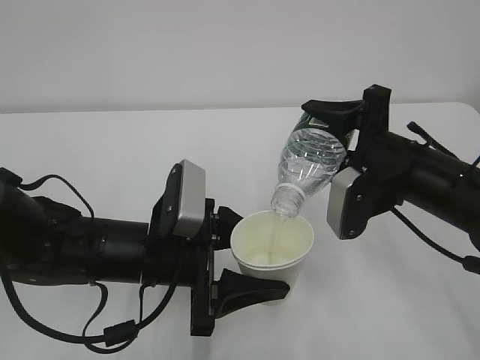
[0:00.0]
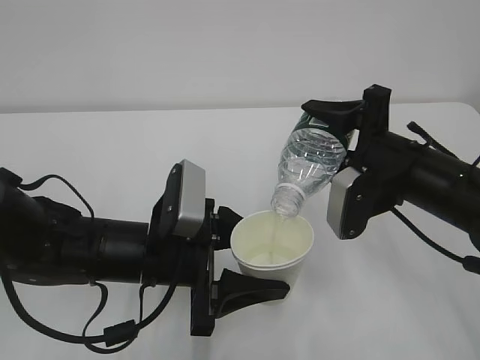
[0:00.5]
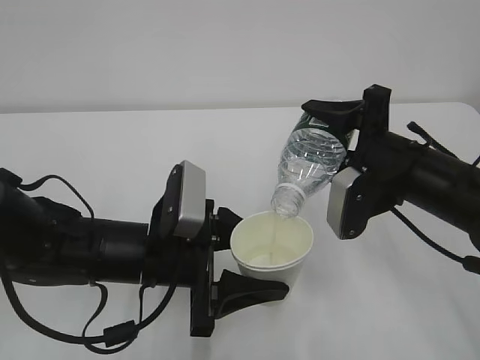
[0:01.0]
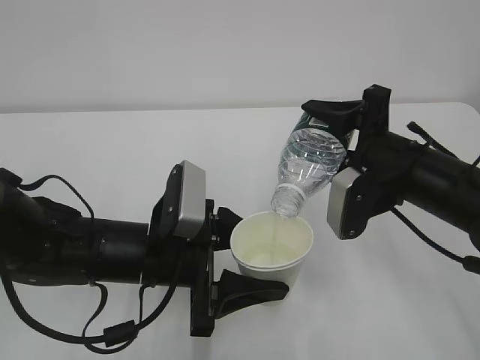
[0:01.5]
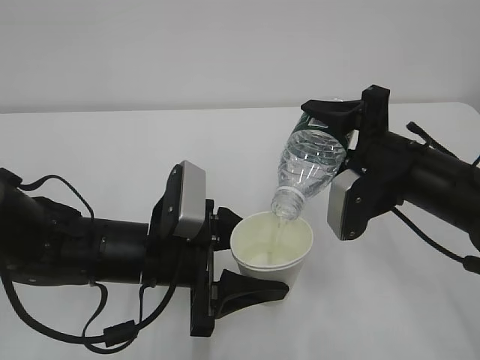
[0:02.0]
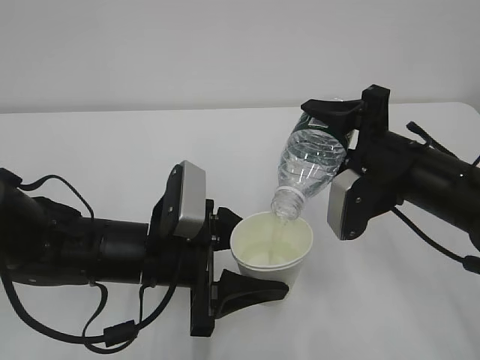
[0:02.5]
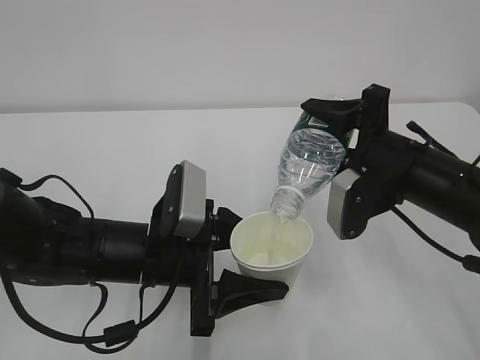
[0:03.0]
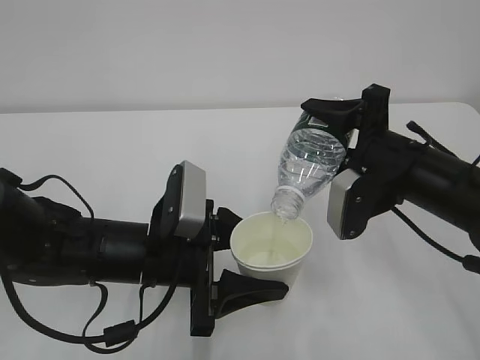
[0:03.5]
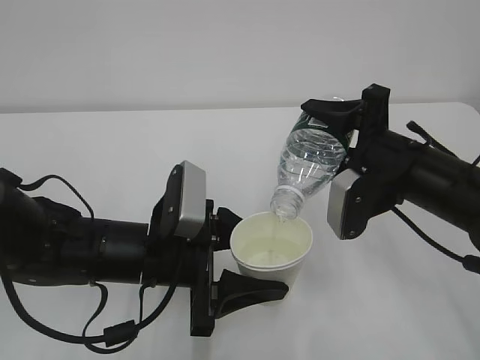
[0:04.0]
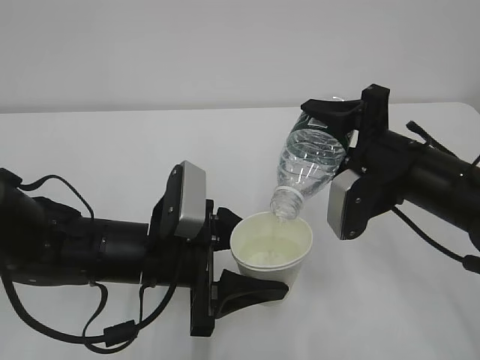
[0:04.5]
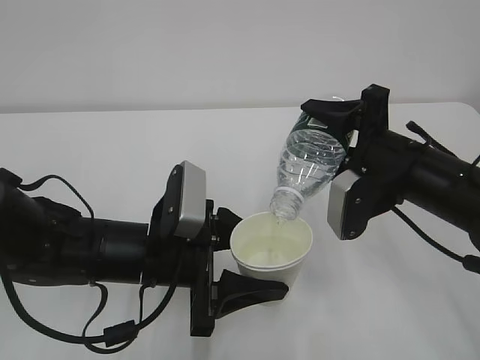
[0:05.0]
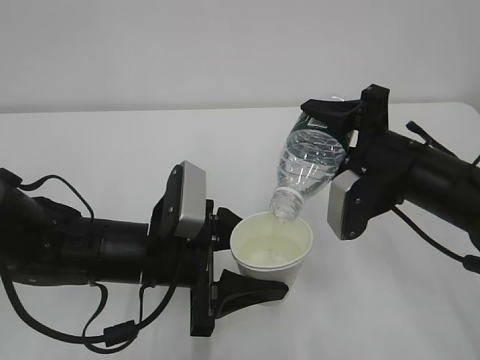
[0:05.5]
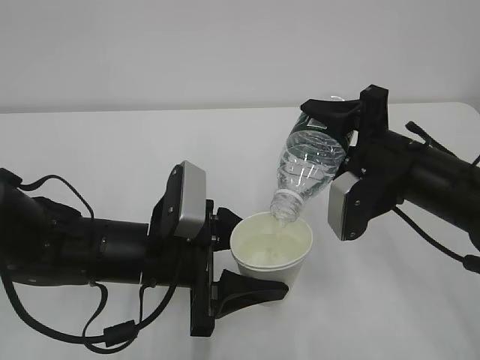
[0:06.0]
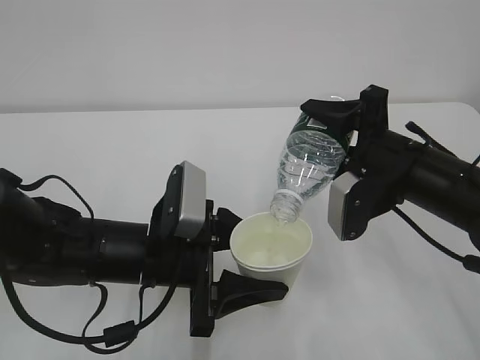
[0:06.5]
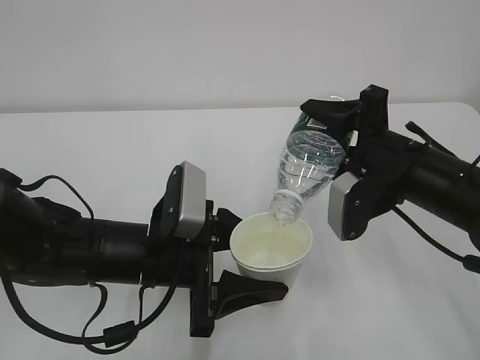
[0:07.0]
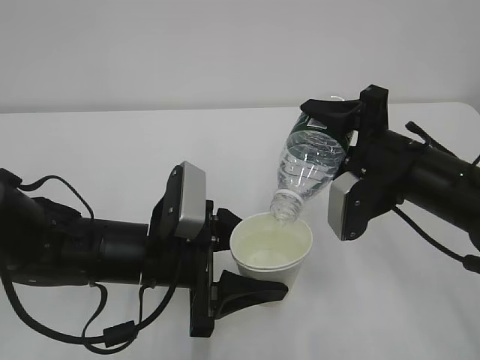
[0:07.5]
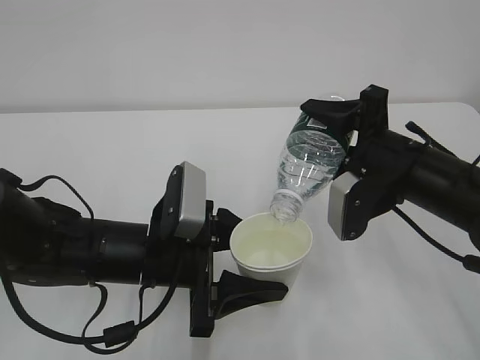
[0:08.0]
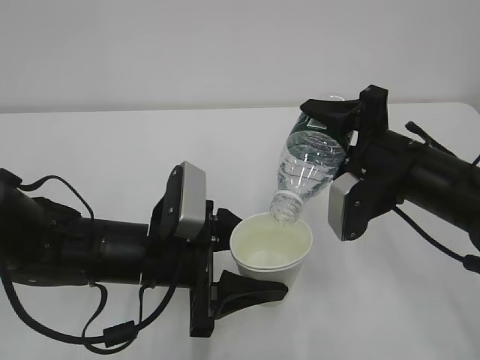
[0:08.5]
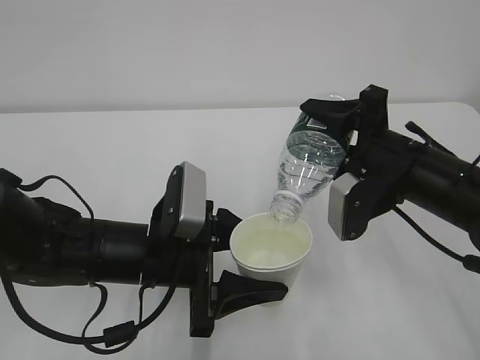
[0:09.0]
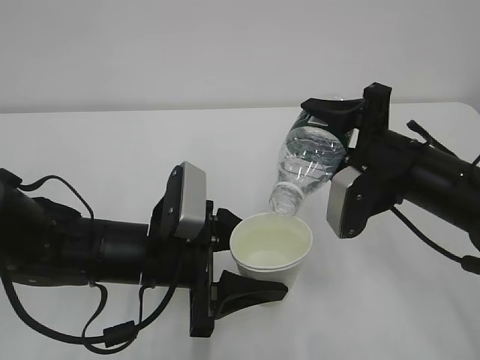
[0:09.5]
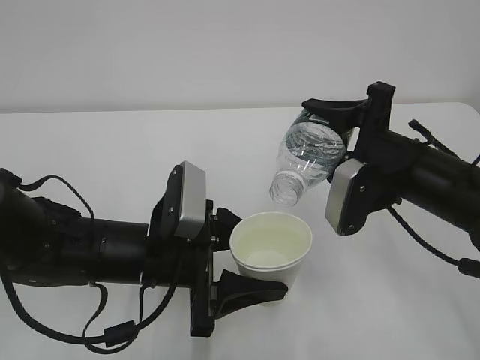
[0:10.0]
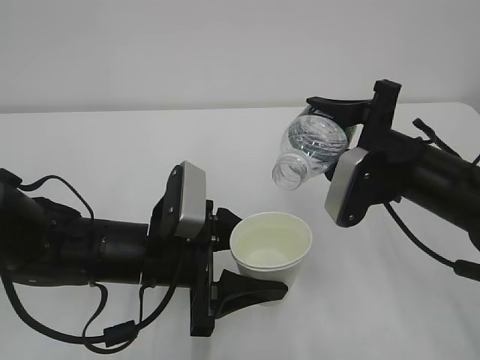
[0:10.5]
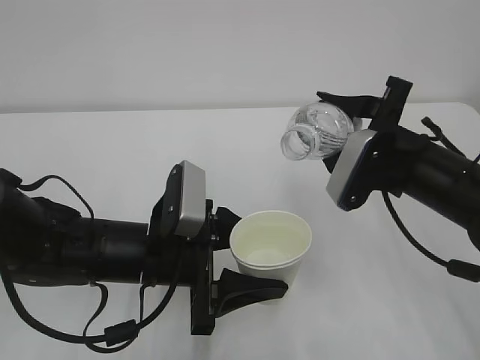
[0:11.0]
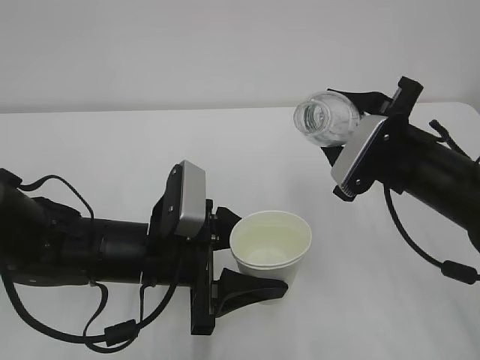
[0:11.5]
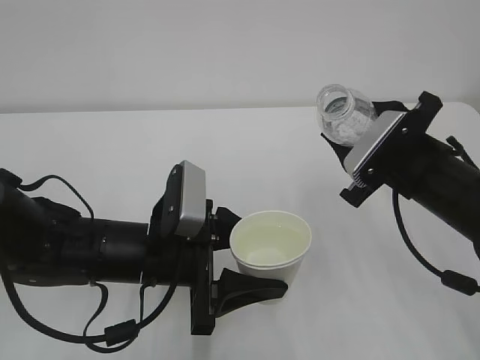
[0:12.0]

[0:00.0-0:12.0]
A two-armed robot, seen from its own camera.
0.0 to 4.0 s: Both grippers stay put.
4.0 to 8.0 s: The two grippers keep their place.
8.0 to 10.0 s: The grippers stay close to where they were, moving slightly.

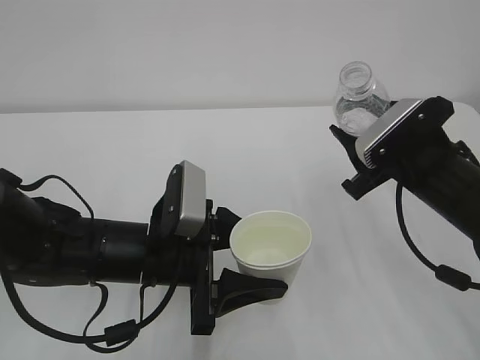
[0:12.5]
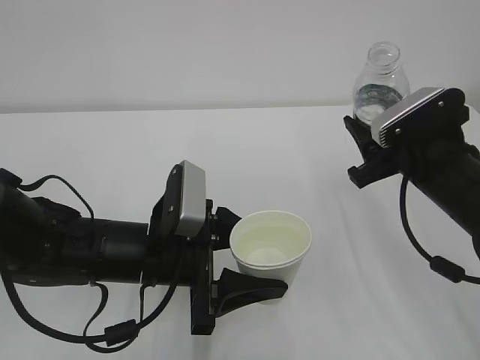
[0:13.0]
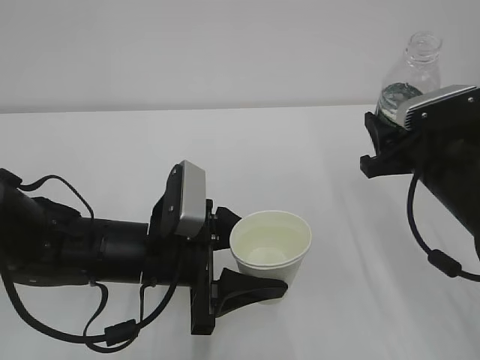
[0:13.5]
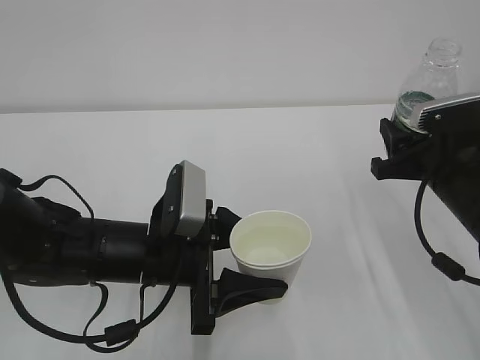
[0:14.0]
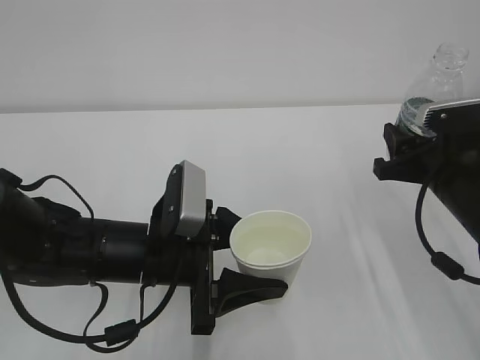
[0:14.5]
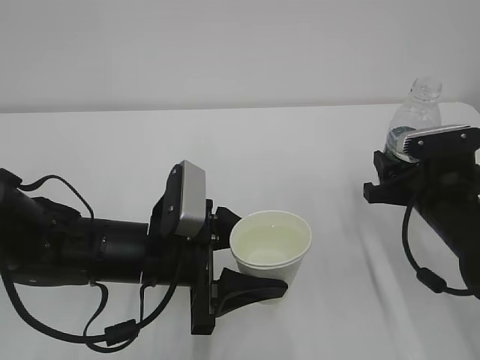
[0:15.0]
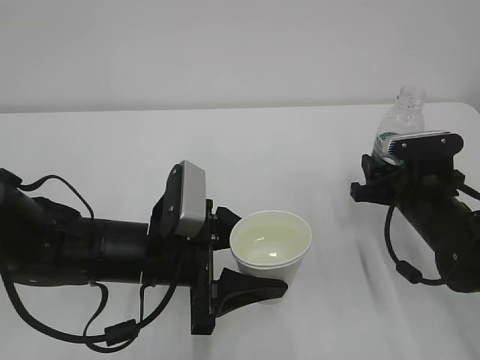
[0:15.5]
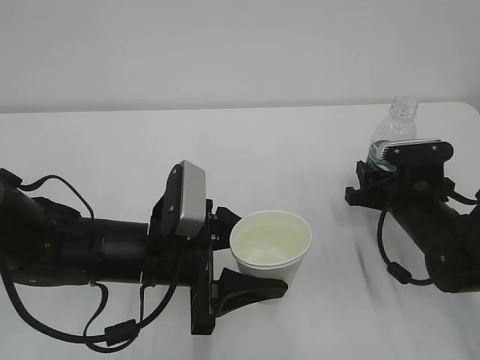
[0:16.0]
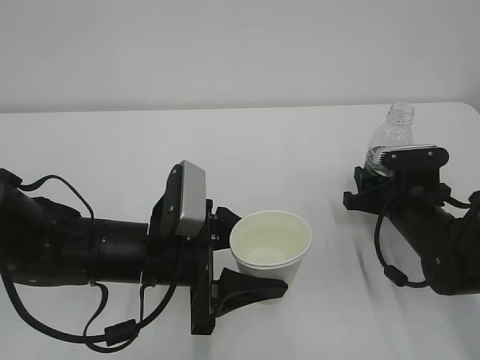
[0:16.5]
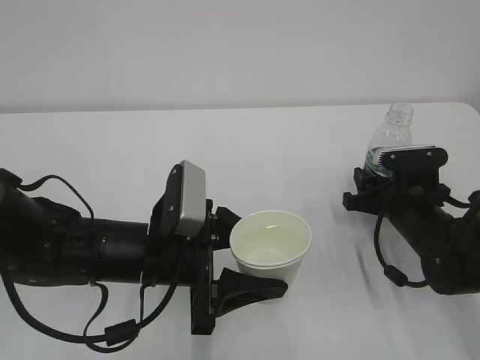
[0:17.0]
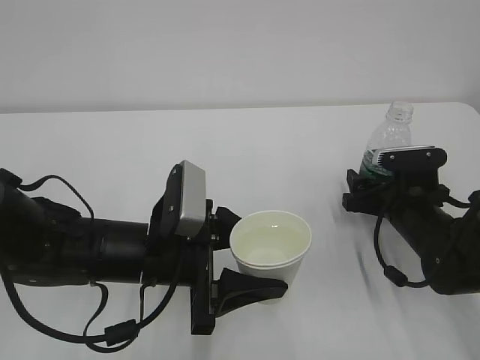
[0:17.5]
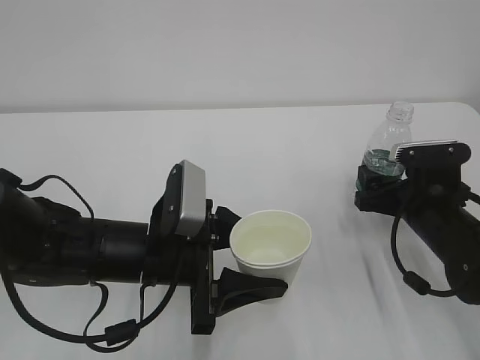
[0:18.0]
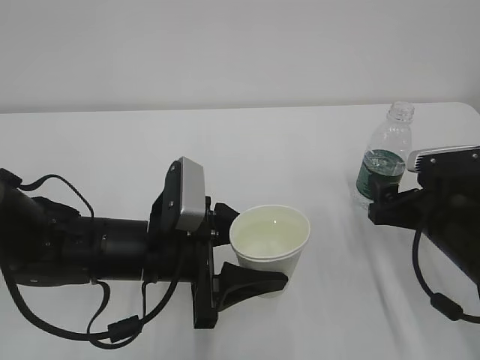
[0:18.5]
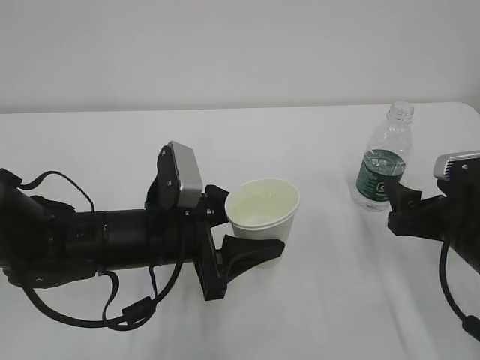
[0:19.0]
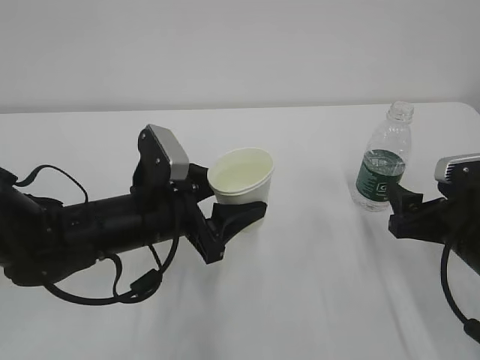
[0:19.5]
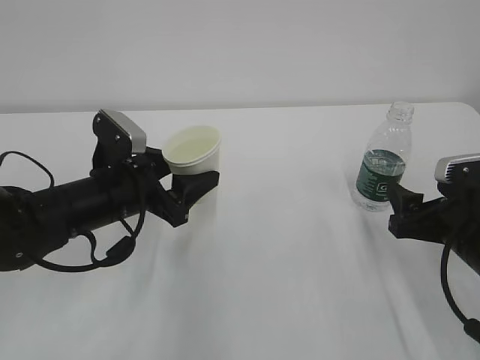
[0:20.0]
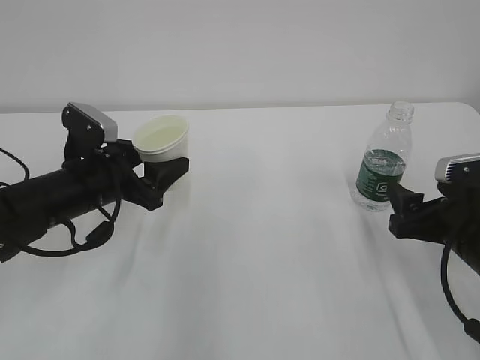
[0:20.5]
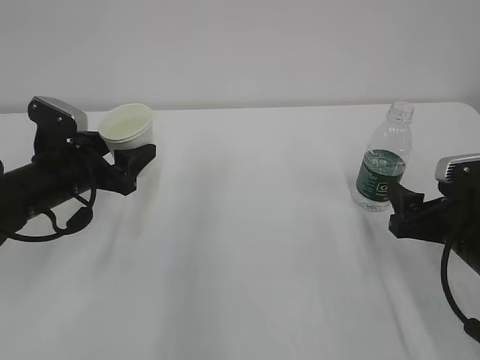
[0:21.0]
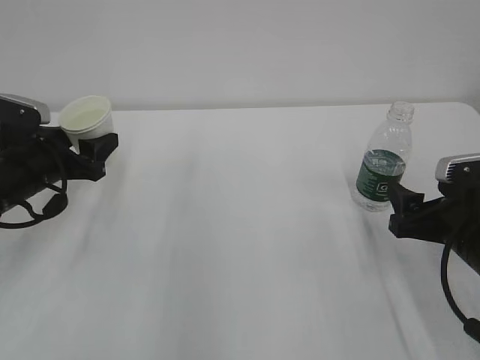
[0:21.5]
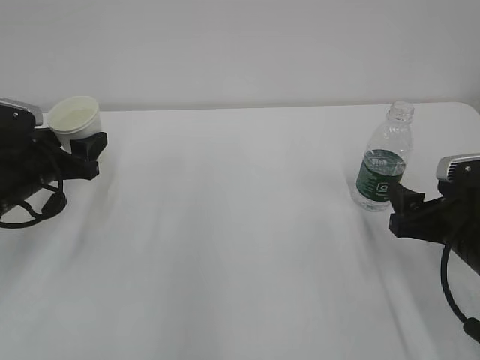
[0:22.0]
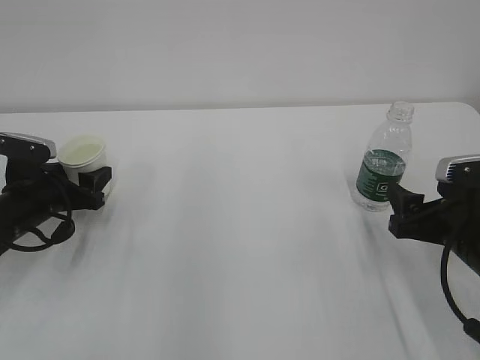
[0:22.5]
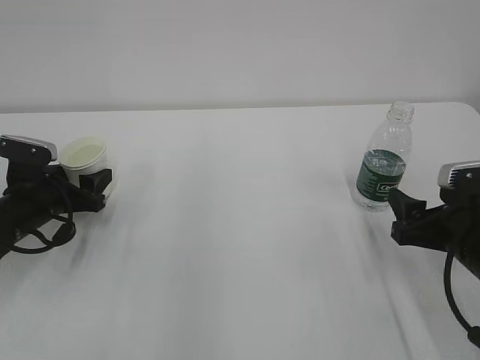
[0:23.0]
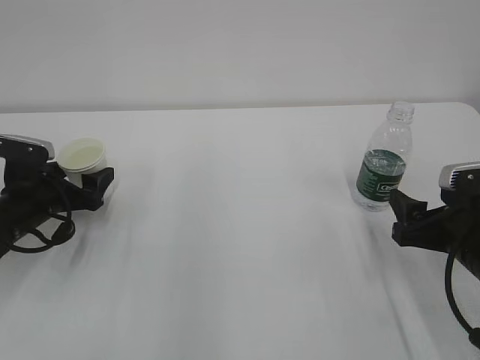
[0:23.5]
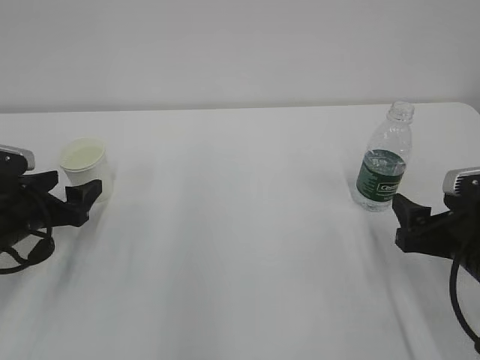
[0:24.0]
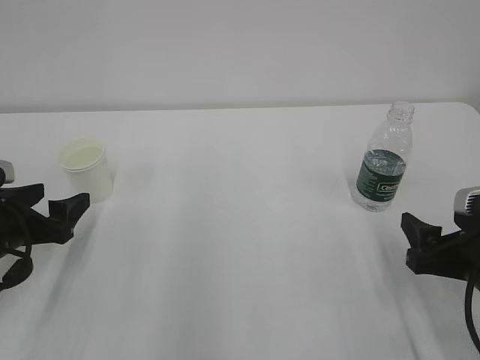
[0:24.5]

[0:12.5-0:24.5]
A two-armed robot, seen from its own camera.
14.5 to 16.5 s: The right gripper moves downward, approximately 10 cm.
16.5 to 18.5 s: The right gripper heads backward, covering about 5 cm, and opens its fingers.
18.5 to 20.5 s: The left gripper is displaced to the left and forward by roughly 15 cm.
20.5 to 22.5 s: The left gripper is displaced to the left and downward by some 10 cm.
22.5 to 24.5 s: The left gripper moves backward, about 10 cm, and opens.

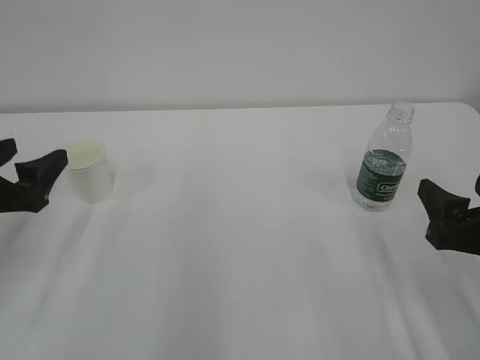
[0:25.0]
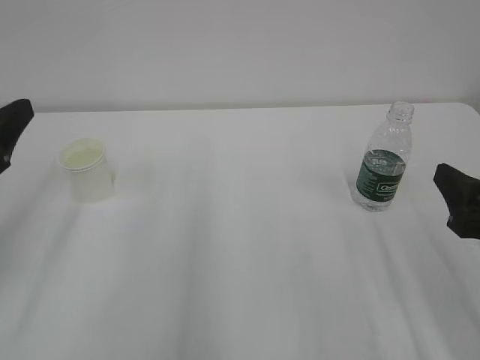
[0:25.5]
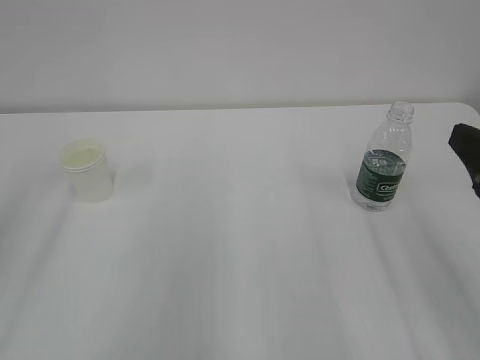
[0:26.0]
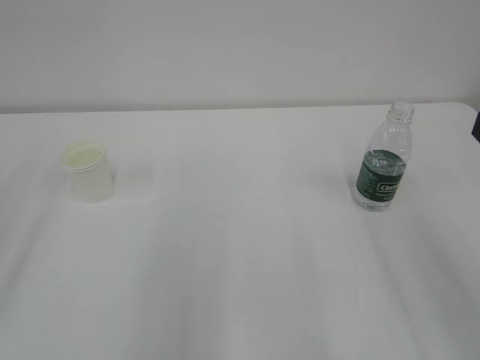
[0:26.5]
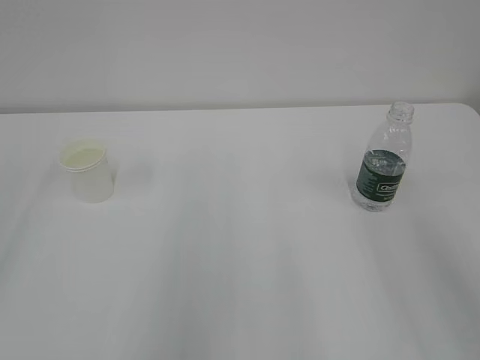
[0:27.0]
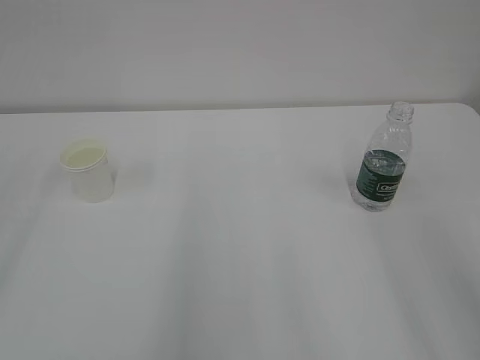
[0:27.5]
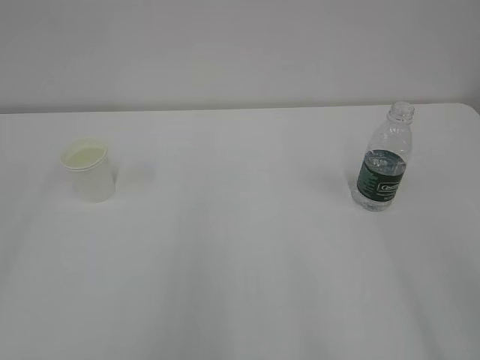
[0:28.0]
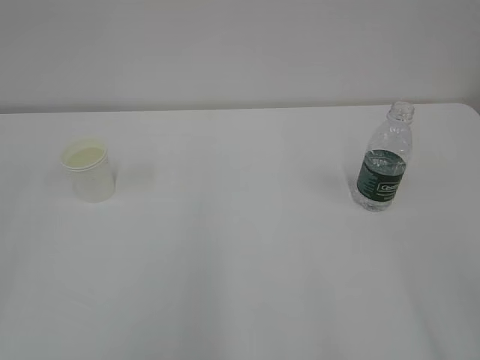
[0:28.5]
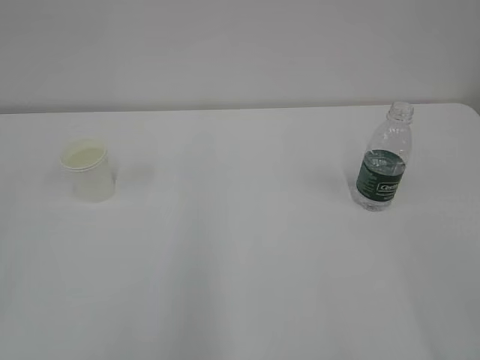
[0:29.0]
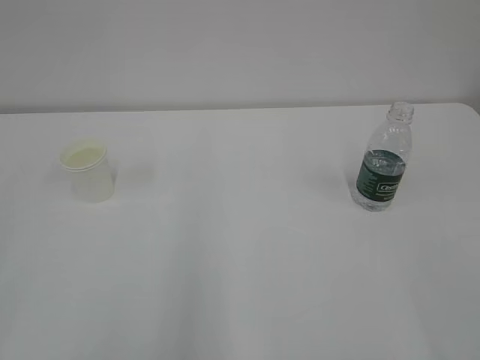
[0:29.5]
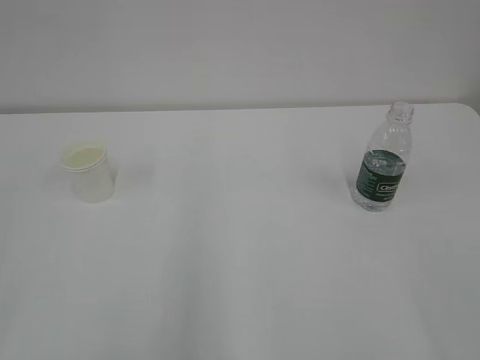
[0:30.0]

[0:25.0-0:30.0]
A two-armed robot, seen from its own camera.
25.0 to 27.5 s: The right gripper shifts approximately 20 cm upward and backward. Meanwhile the left gripper moves backward and upward, roughly 25 cm.
